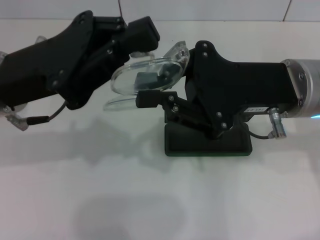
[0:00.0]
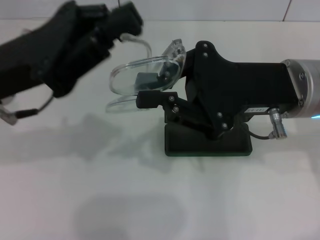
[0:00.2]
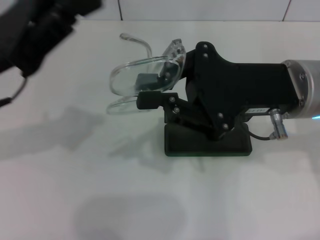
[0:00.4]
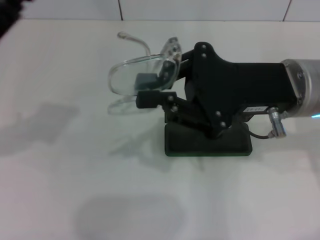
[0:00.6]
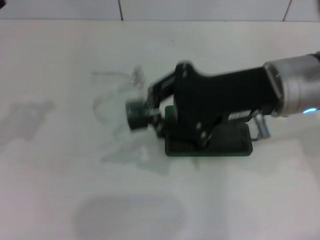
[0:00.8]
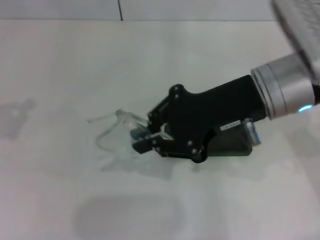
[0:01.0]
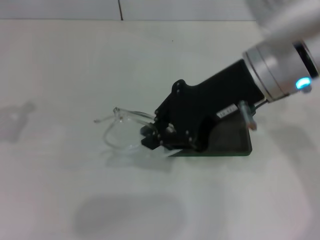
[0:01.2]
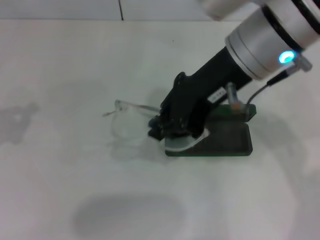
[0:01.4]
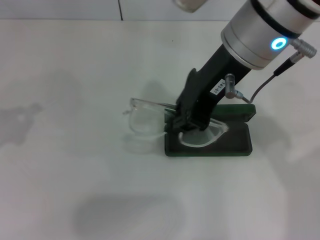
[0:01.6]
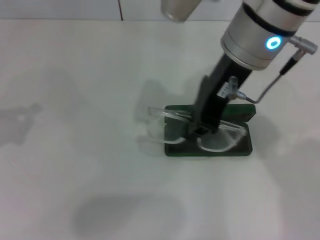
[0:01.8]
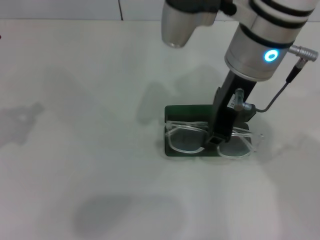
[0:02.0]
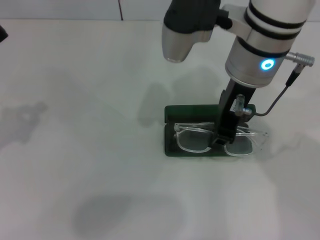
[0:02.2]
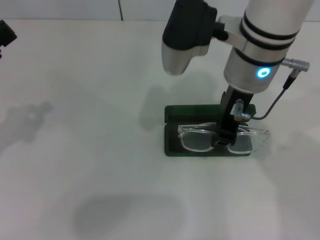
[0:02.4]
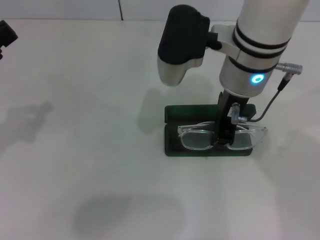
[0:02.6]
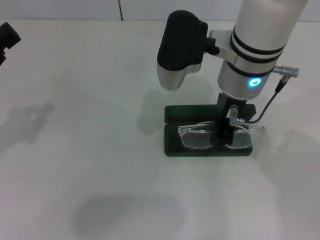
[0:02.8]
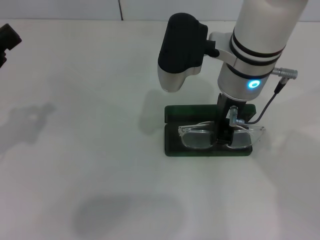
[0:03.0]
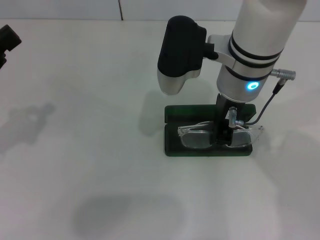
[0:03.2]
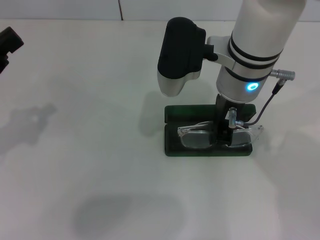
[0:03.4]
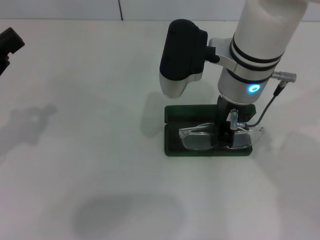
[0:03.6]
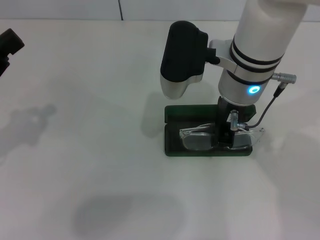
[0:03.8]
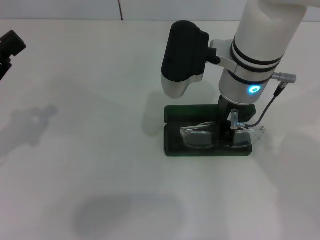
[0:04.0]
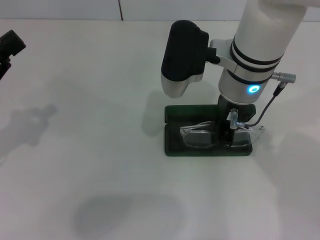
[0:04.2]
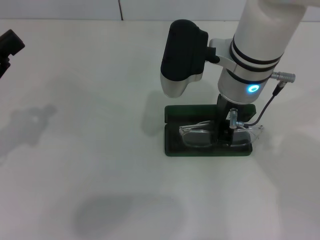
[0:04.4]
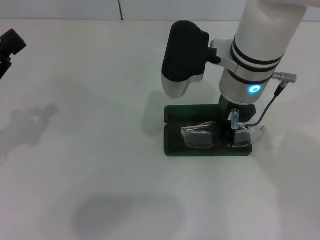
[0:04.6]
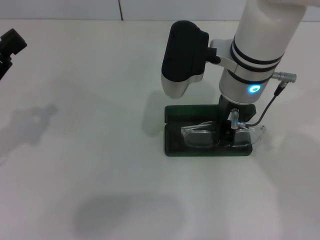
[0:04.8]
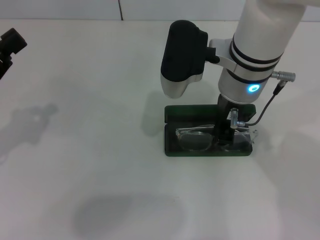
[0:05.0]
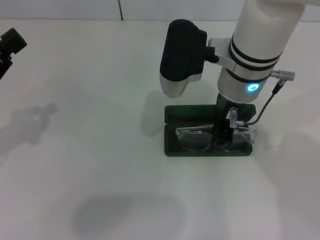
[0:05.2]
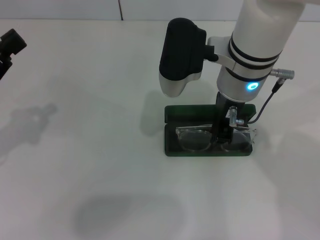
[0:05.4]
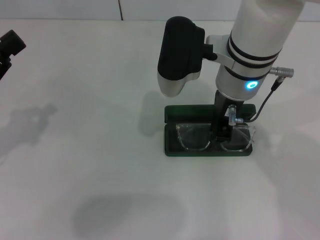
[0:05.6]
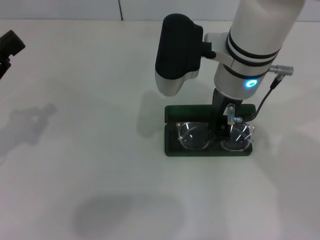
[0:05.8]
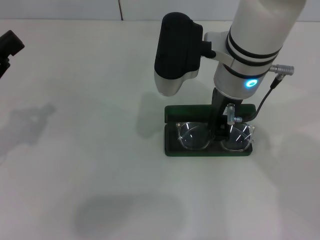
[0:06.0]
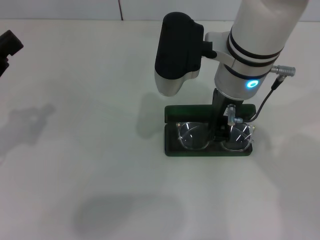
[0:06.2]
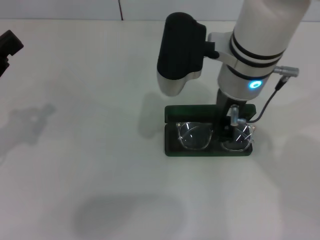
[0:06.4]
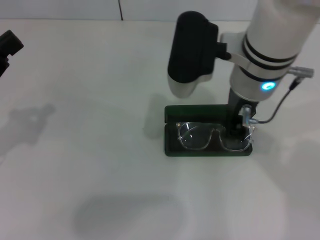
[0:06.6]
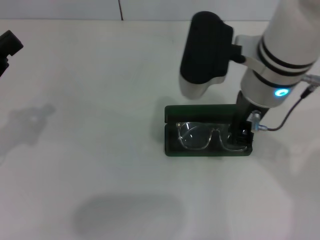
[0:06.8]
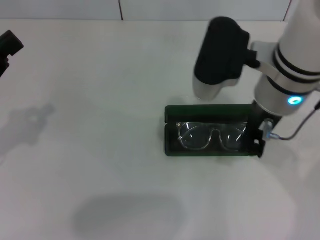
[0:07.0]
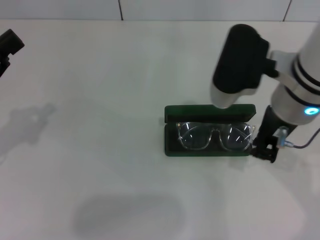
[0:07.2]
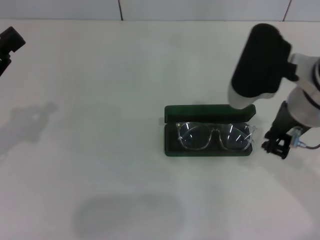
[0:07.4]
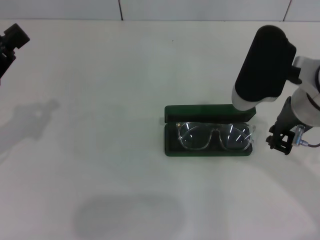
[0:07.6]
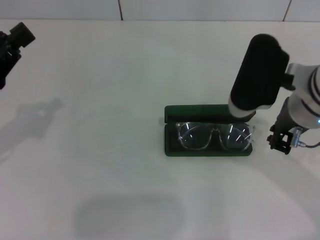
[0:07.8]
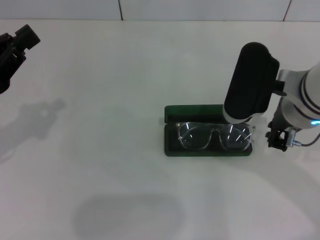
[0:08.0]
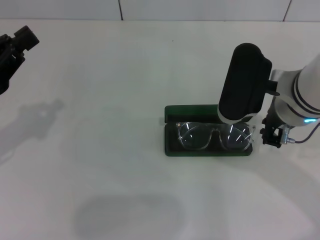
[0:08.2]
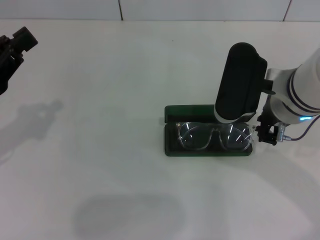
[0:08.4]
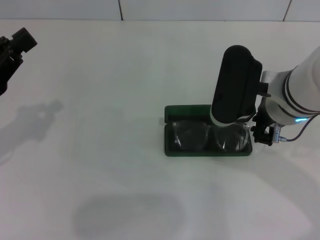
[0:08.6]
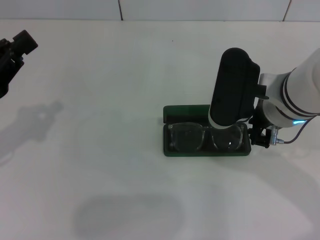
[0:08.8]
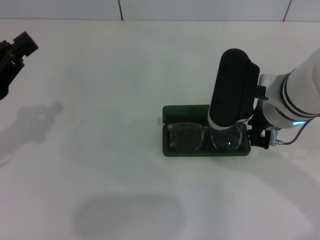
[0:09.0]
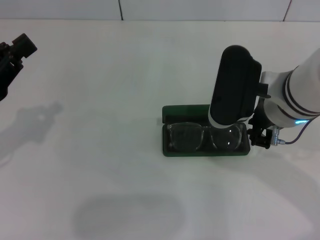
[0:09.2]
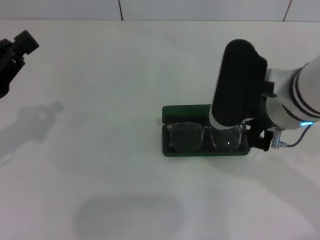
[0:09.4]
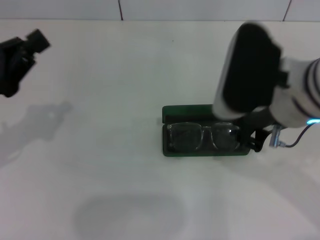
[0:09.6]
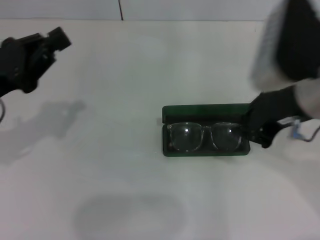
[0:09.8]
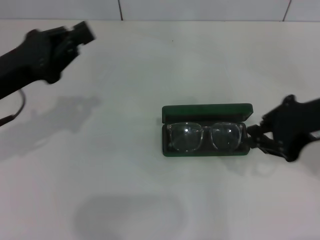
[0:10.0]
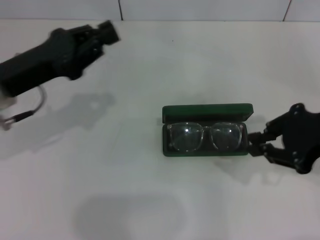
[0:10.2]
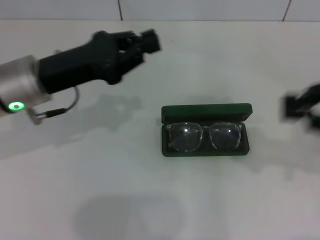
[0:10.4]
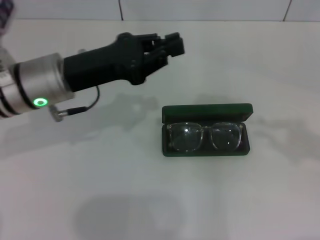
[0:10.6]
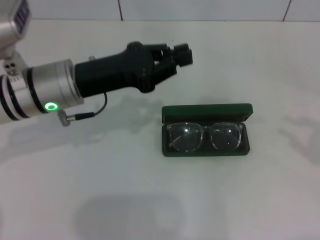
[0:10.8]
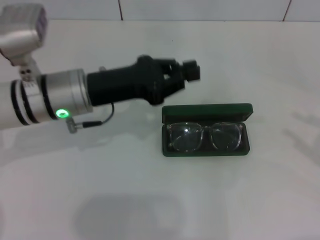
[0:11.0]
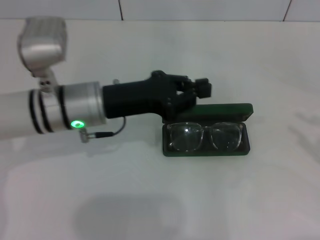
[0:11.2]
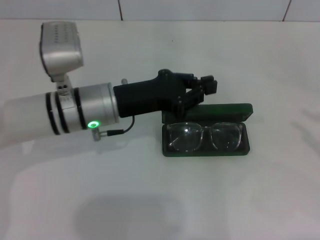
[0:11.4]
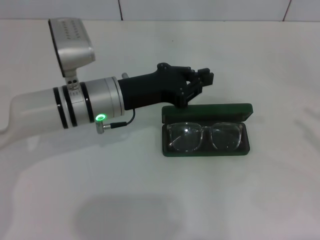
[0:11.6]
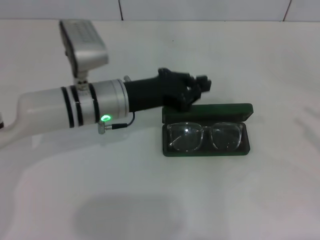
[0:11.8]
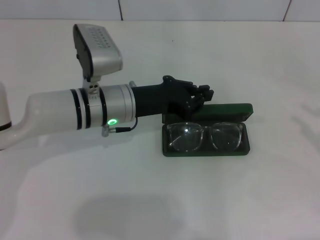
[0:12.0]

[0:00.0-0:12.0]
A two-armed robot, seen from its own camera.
Step, 0:00.2 to 0:08.6: Put the glasses into the case with your right hand.
0:00.0 to 0:01.6: The left gripper is displaced to the left by approximately 15 cm. Meanwhile the right gripper moves upward and to the left, roughly 10 cm.
0:01.6 to 0:03.0: The right gripper travels downward by approximately 10 cm.
0:03.0 to 0:04.4: The two grippers keep their place.
0:04.4 to 0:06.0: The grippers move only a little.
0:06.0 to 0:07.6: The right gripper heads to the right, covering some 10 cm.
0:07.6 to 0:09.0: There are only small adjustments of the grippers.
0:09.0 to 0:10.4: The left gripper heads to the right and forward, covering about 15 cm. Meanwhile the right gripper moves to the right and backward, approximately 20 cm.
0:10.4 to 0:12.0: Both grippers move to the right and downward, roughly 10 cm. The right gripper opens up.

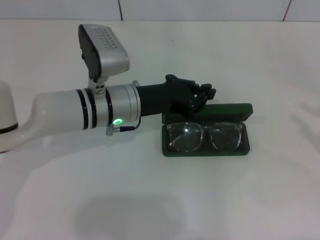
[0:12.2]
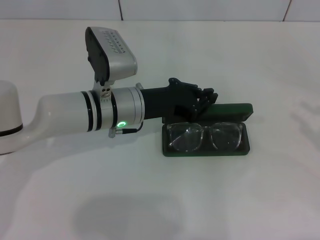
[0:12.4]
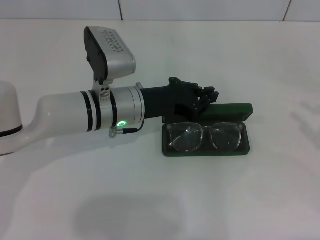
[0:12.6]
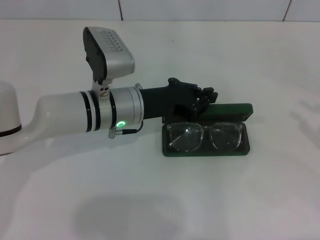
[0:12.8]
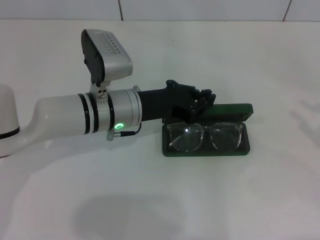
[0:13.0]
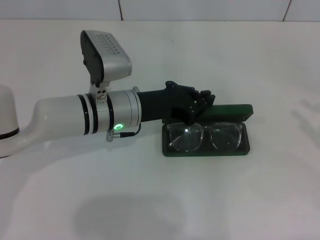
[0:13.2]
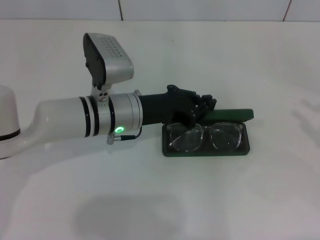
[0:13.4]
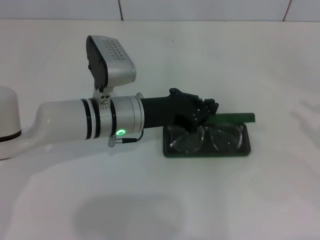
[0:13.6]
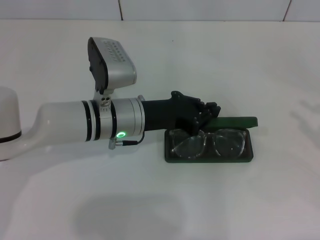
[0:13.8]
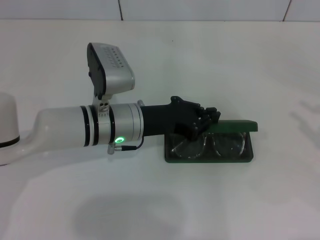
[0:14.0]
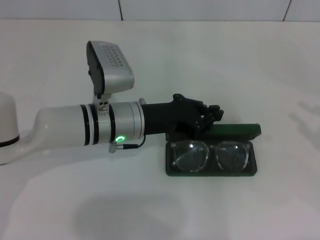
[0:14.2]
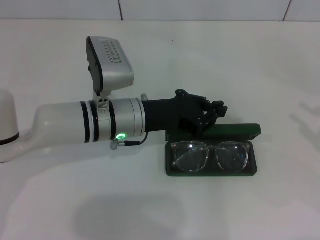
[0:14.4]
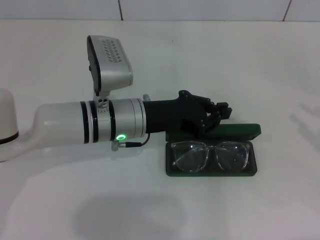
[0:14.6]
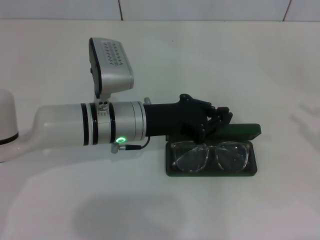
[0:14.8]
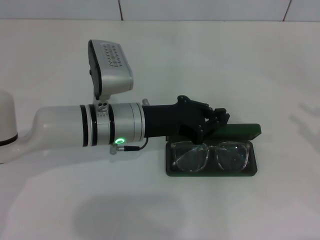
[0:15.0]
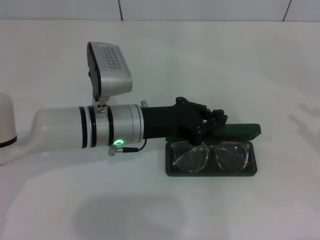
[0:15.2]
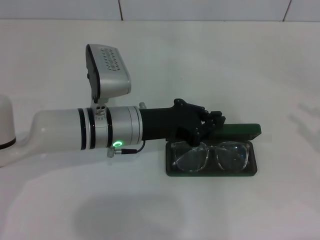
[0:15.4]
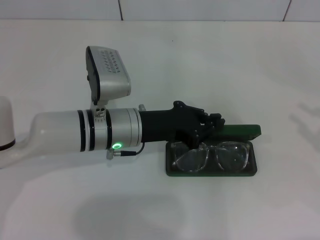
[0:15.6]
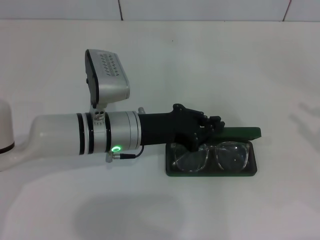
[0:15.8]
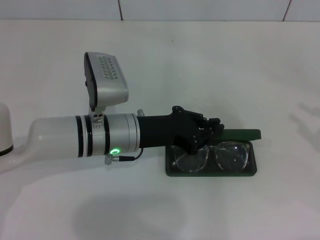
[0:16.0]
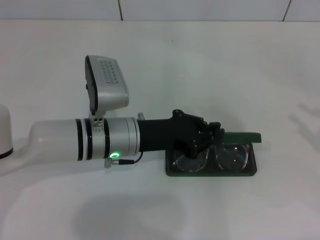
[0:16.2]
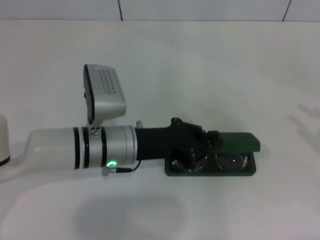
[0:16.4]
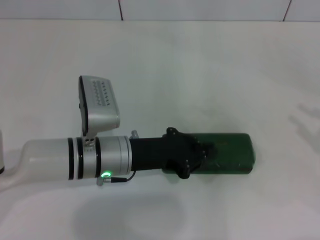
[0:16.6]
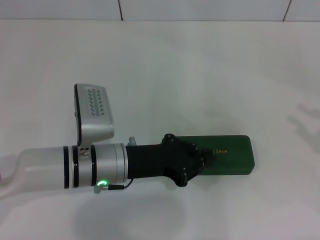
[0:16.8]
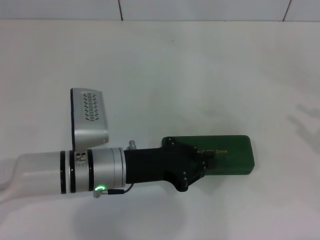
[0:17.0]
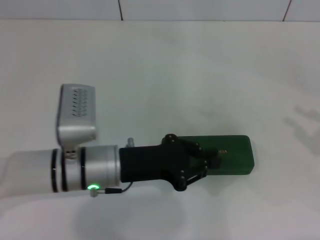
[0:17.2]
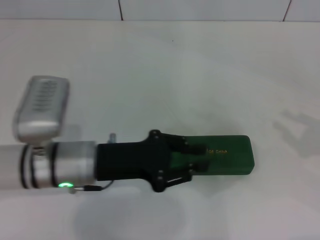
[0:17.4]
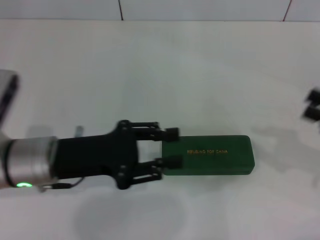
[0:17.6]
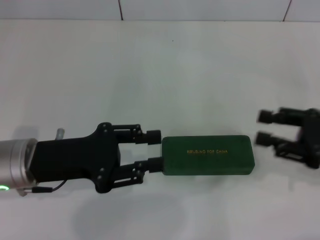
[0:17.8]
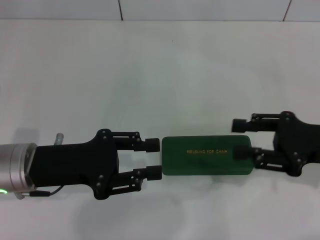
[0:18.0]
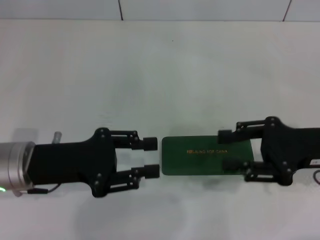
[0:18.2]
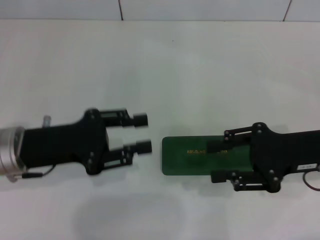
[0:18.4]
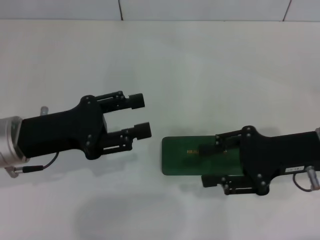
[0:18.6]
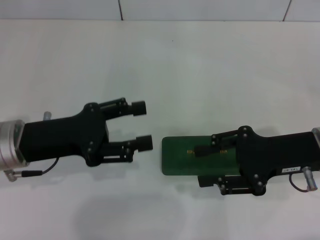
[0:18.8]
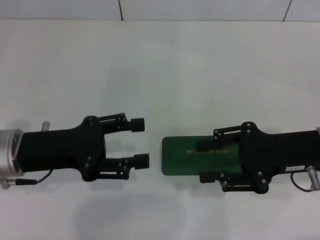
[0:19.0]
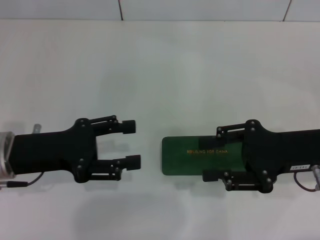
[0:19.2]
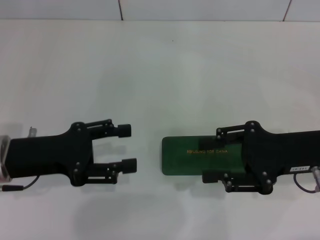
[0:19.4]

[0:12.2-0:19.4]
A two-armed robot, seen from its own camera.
Step, 0:12.2 to 0:16.6: Close the glasses case with your left hand.
0:12.2 to 0:13.6: Both grippers stay put.
0:13.6 to 0:16.6: The grippers stay close to where they were, moving slightly.
0:16.6 to 0:18.0: The left gripper moves to the left, about 10 cm, and opens up; the right gripper travels to the left and forward by some 15 cm.
0:18.0 to 0:19.4: The left gripper opens its fingers.
